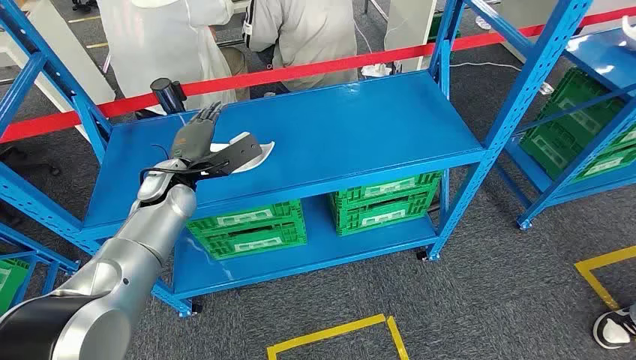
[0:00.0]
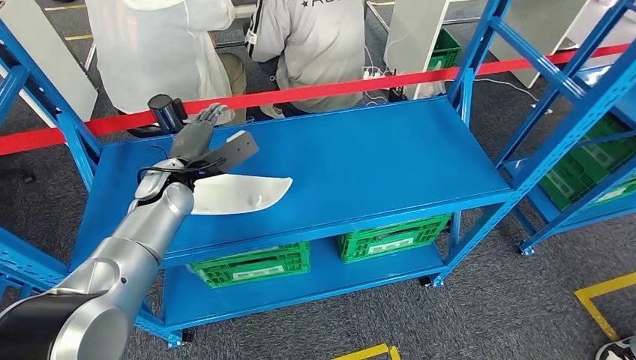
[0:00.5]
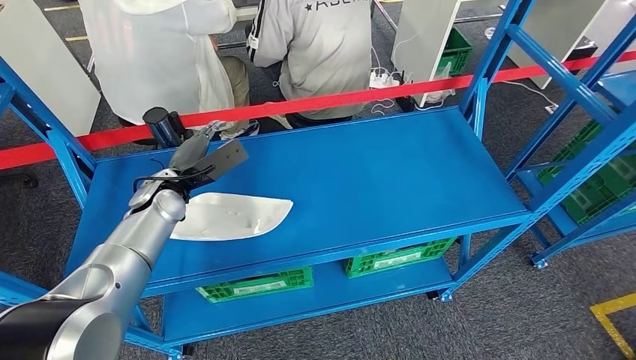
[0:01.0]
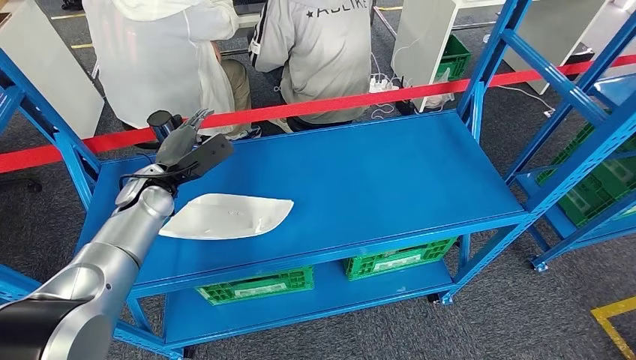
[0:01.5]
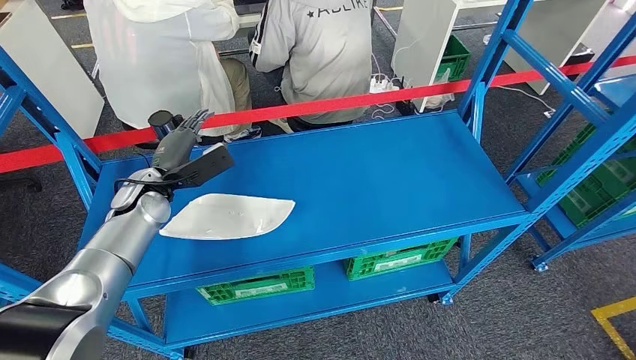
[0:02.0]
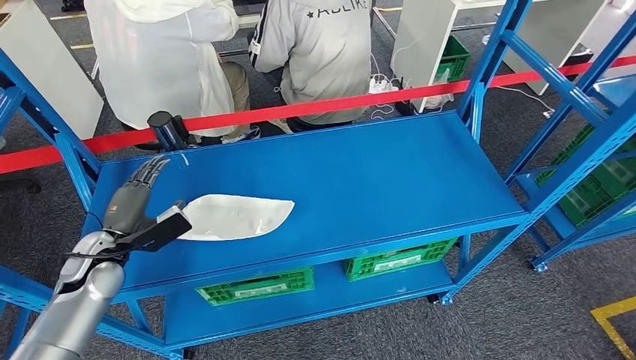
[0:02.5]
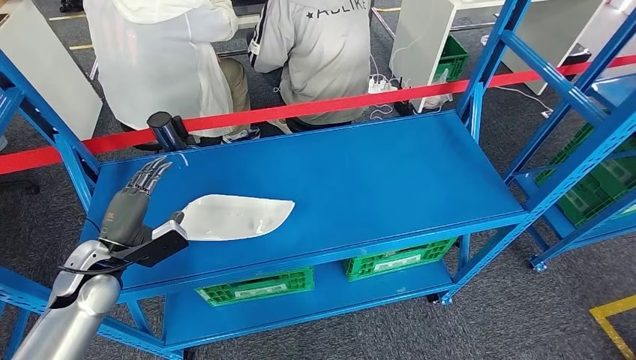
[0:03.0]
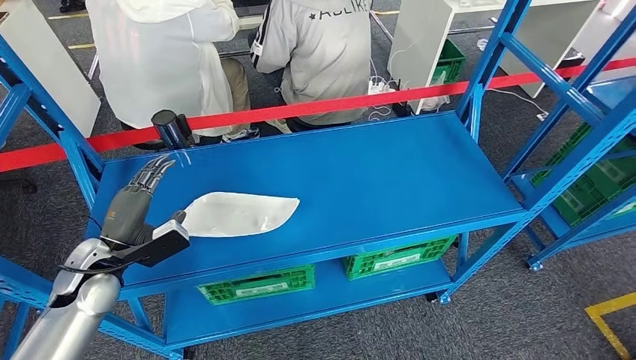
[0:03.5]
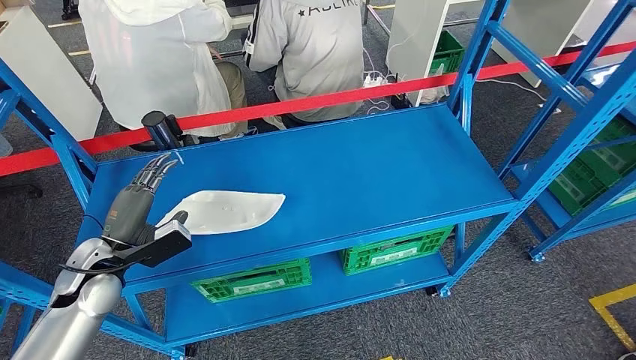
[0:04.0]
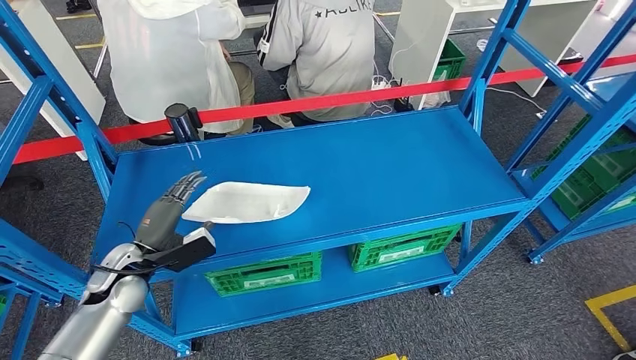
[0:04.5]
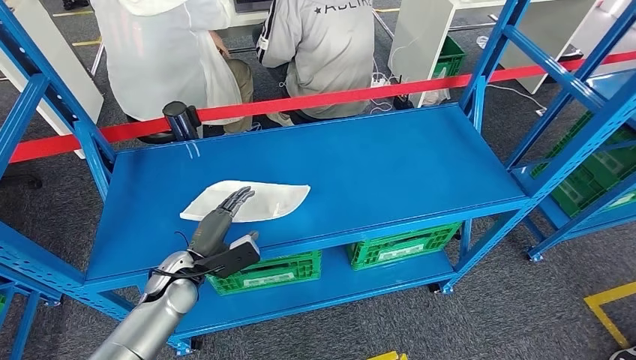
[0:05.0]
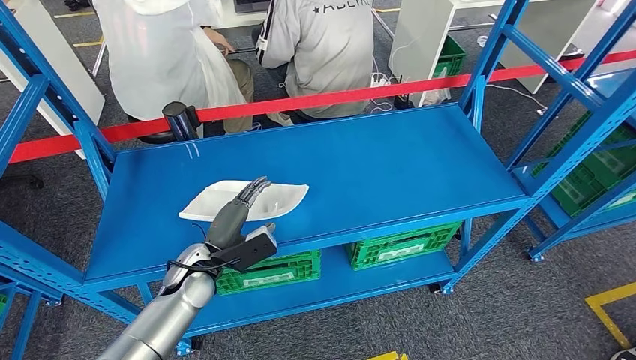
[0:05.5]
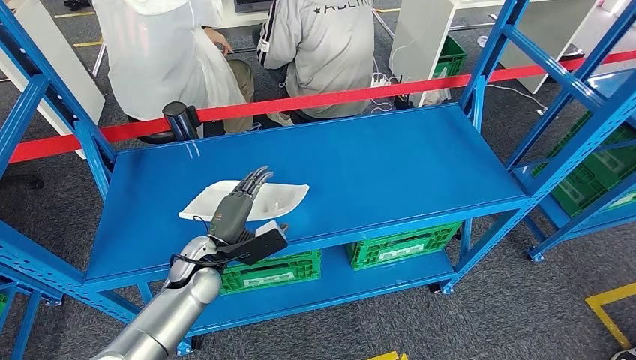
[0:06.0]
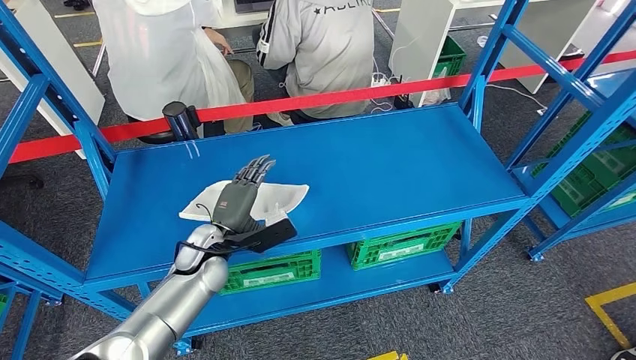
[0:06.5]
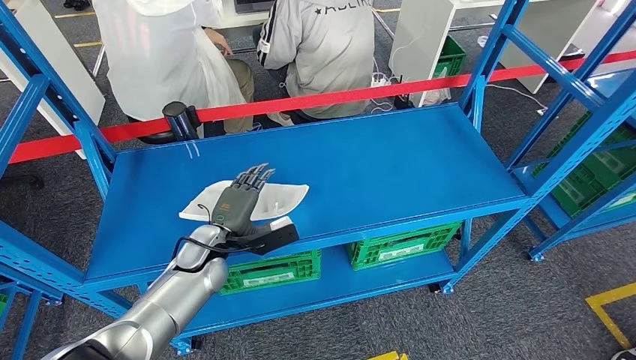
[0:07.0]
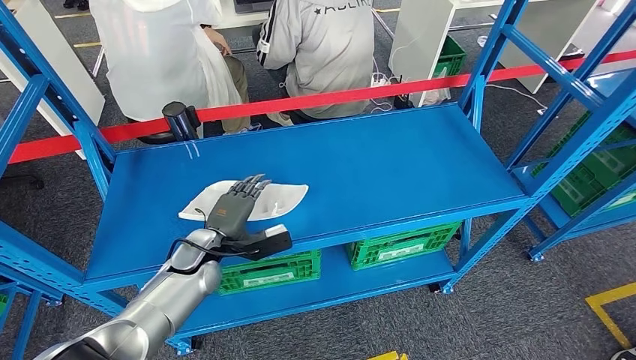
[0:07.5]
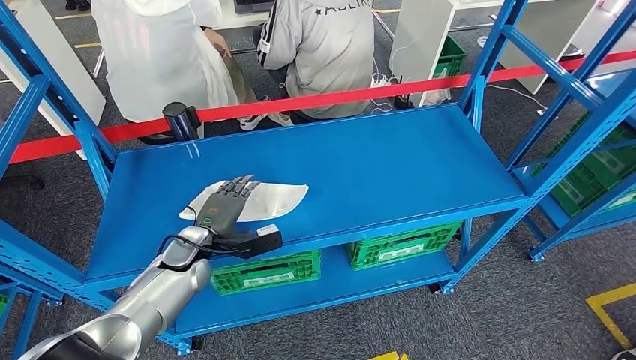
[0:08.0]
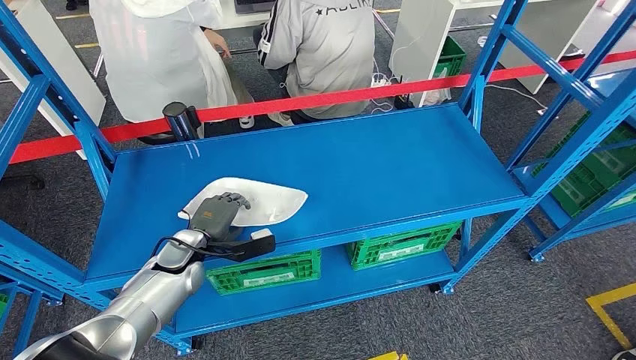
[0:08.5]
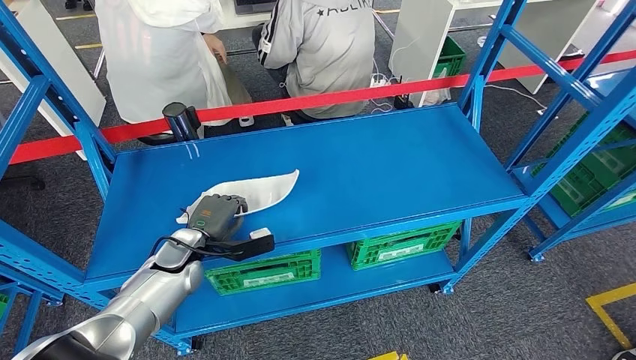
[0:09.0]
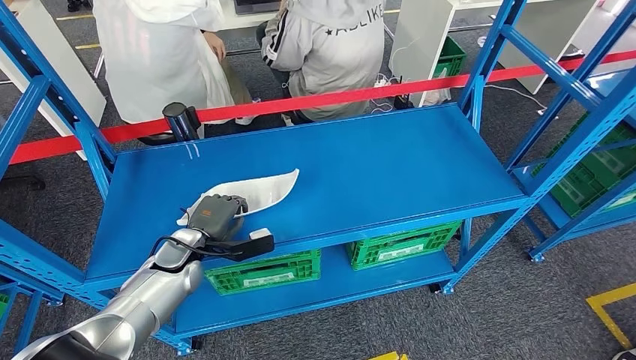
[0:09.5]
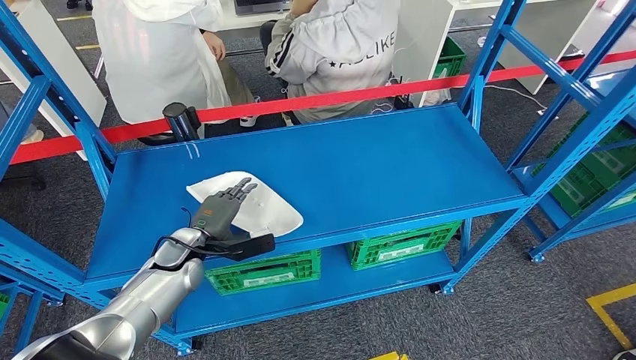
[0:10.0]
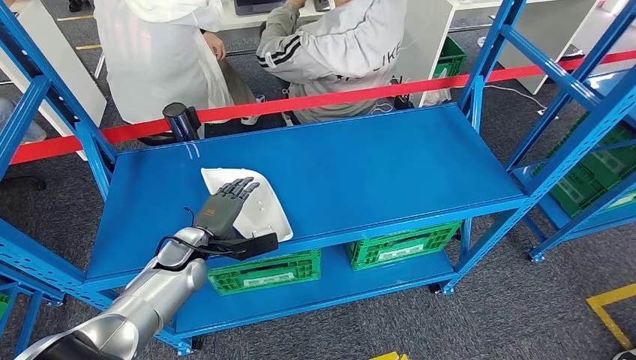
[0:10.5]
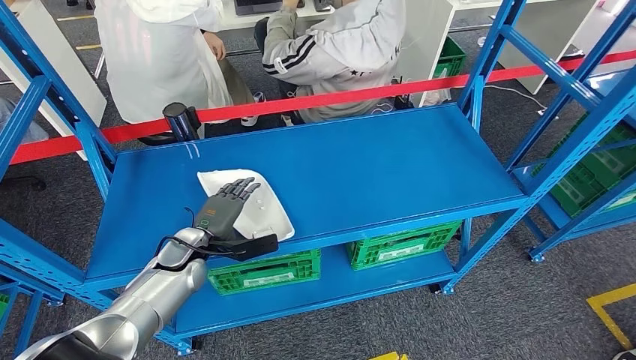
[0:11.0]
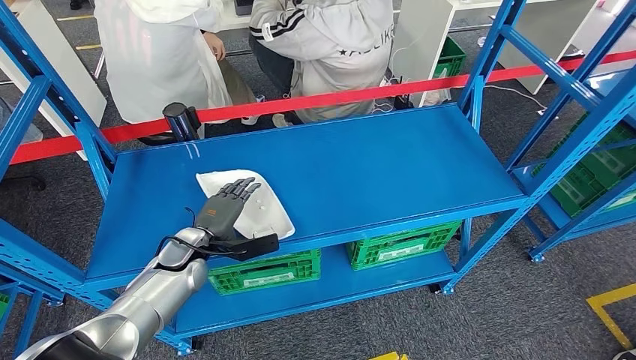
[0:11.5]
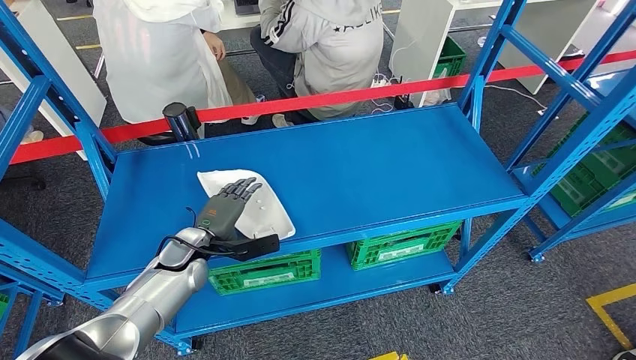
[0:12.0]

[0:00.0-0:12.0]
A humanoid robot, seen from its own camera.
0:06.0 to 0:08.0: The left hand ends up approximately 5 cm from where it was.
0:08.0 to 0:10.0: The hands make only small movements.
0:10.0 to 0:12.0: Neither hand changes place.

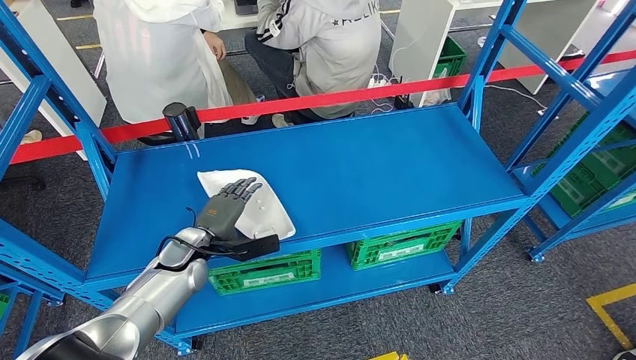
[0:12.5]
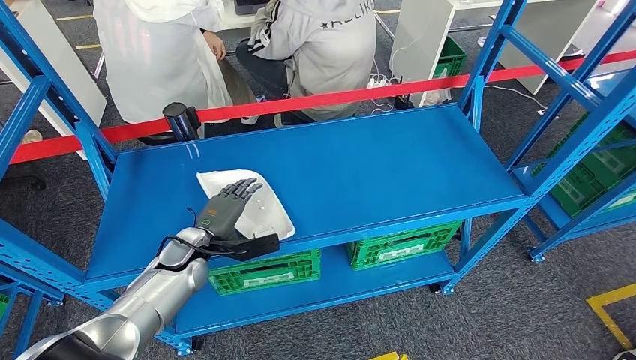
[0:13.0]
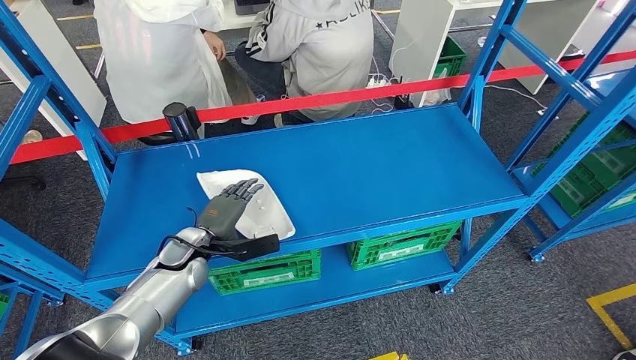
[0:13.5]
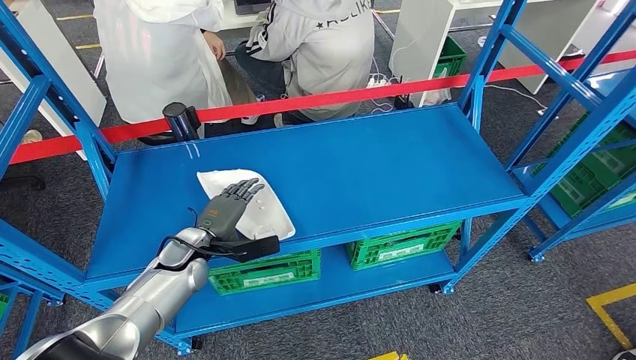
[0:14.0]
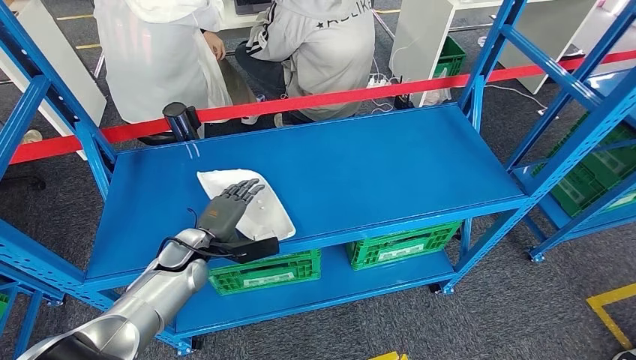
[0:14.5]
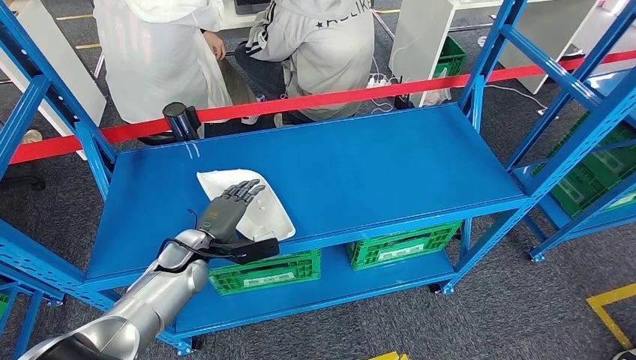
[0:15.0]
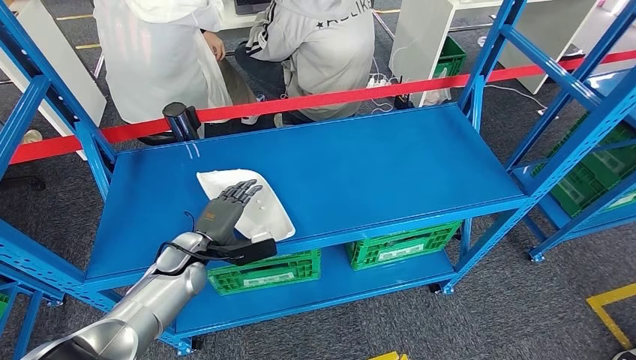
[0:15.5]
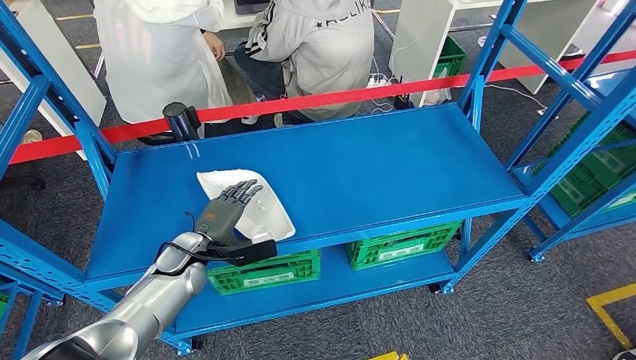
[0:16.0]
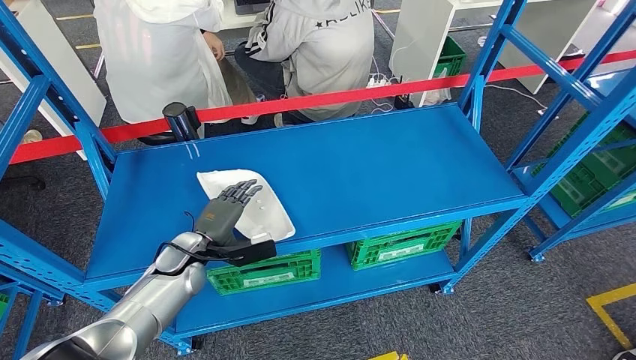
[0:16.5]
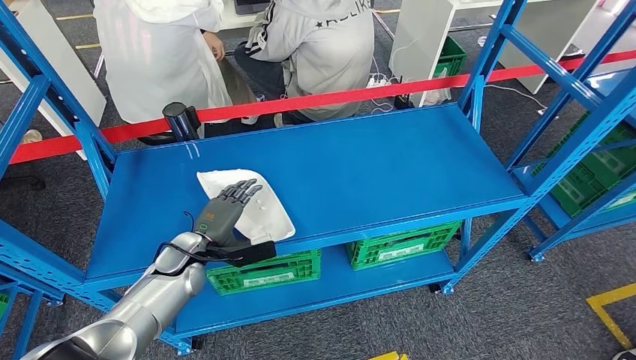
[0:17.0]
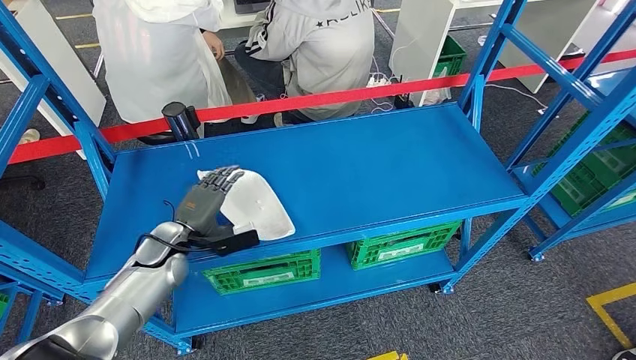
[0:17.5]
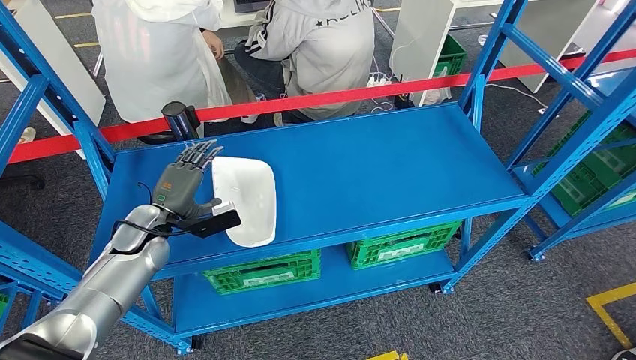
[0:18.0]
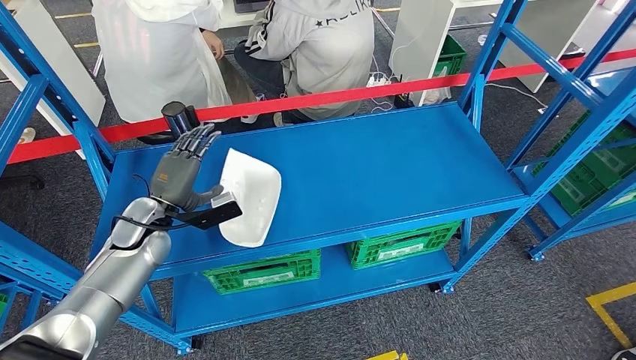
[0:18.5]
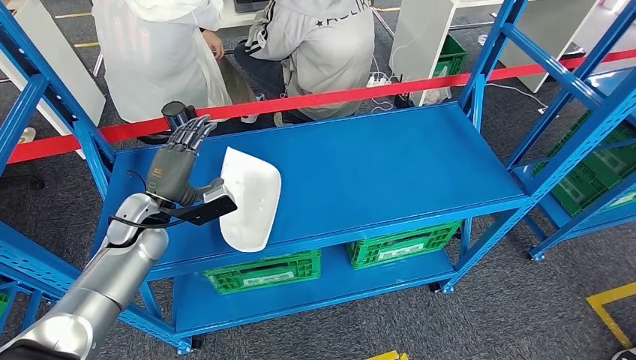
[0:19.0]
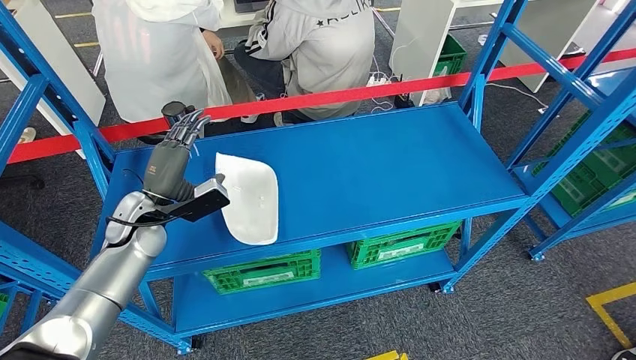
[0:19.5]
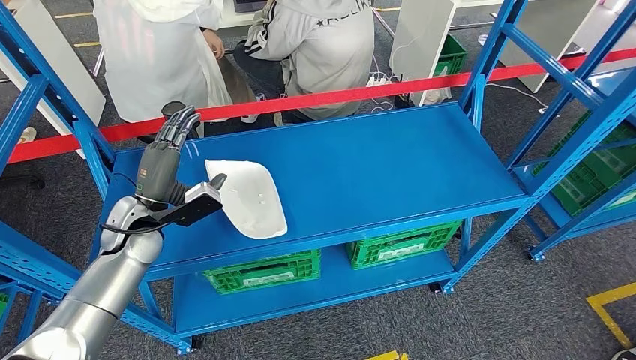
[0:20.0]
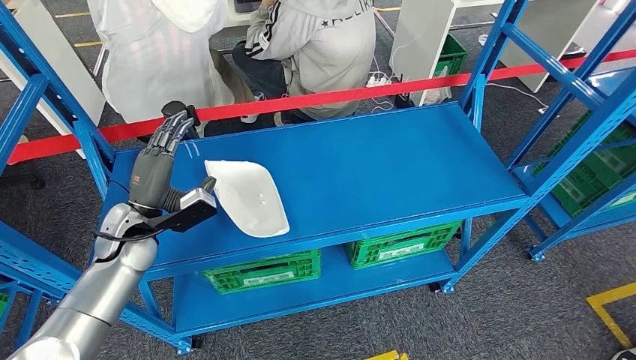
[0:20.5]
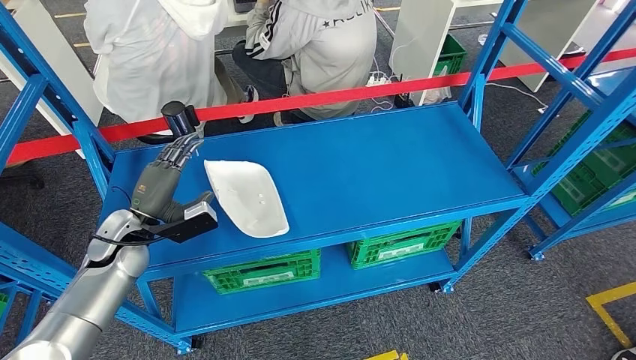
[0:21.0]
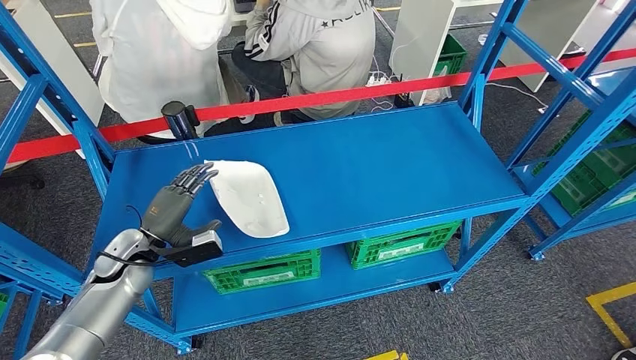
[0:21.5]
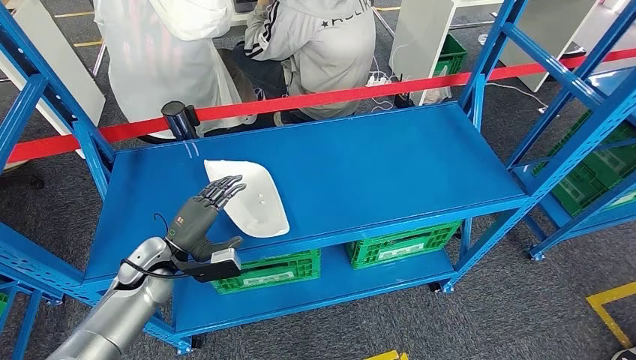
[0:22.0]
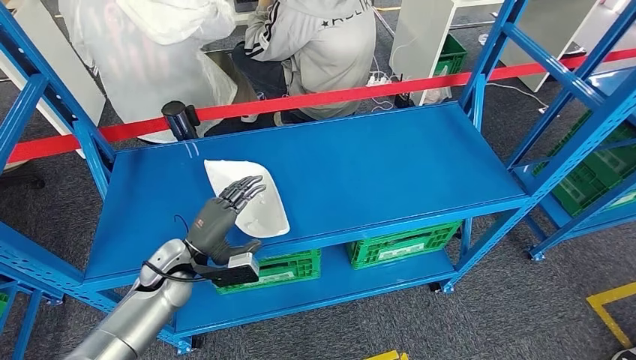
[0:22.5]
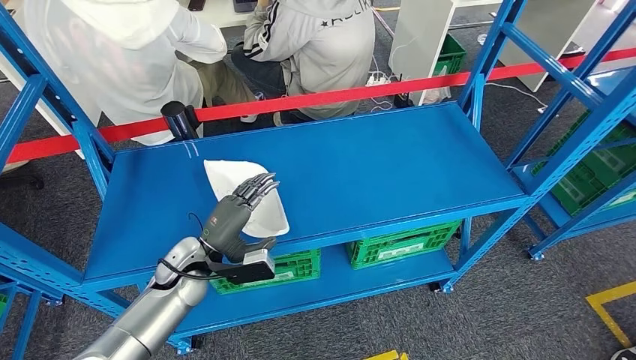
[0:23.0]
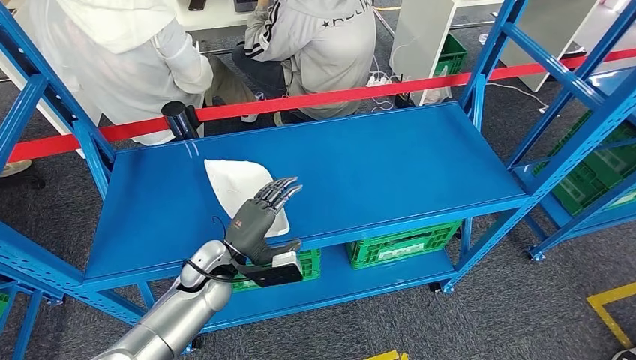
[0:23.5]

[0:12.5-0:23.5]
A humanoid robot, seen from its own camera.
0:12.5 to 0:14.5: Neither hand changes place.
0:14.5 to 0:16.0: Both hands stay put.
0:16.0 to 0:18.0: The left hand heads to the left and upward, covering roughly 10 cm.
0:20.0 to 0:21.5: The left hand moves downward, about 5 cm.
0:21.5 to 0:23.5: The left hand is displaced to the right by about 15 cm.
